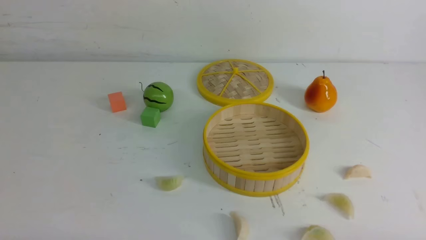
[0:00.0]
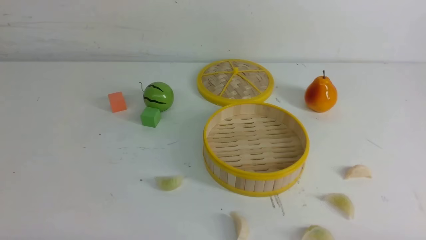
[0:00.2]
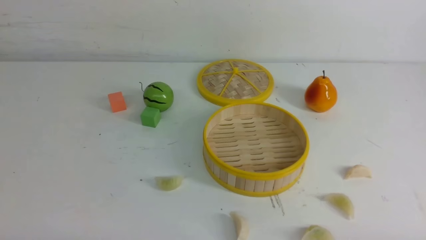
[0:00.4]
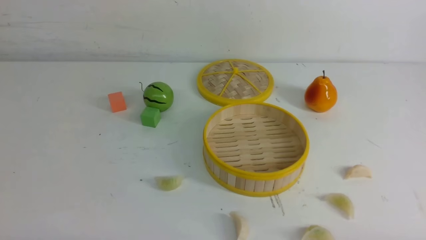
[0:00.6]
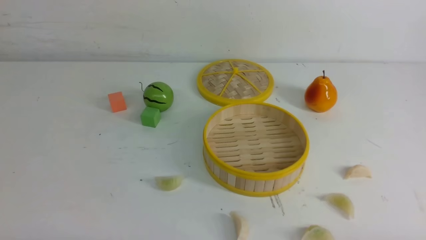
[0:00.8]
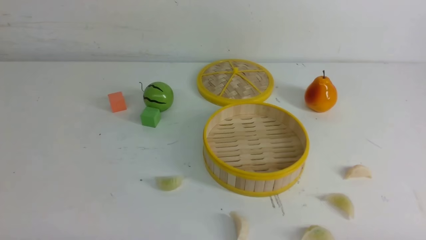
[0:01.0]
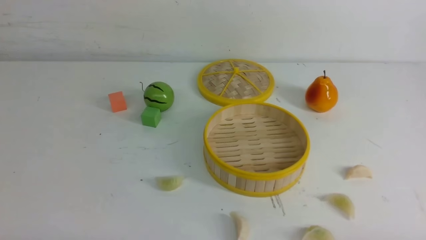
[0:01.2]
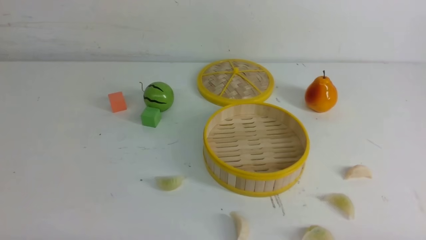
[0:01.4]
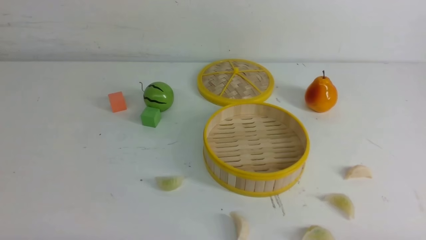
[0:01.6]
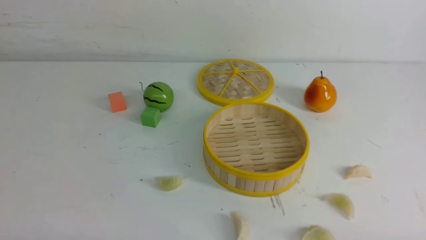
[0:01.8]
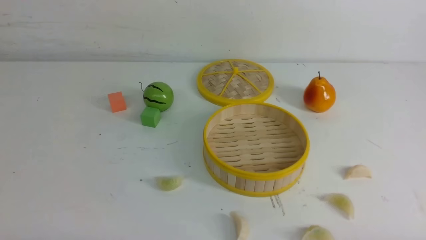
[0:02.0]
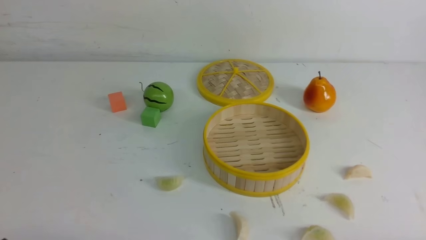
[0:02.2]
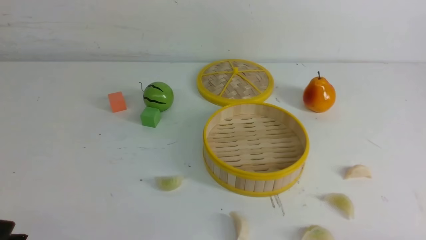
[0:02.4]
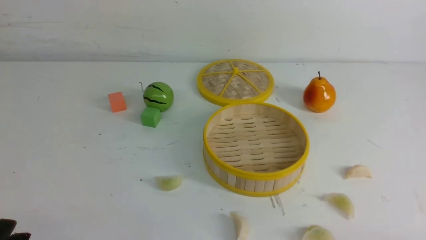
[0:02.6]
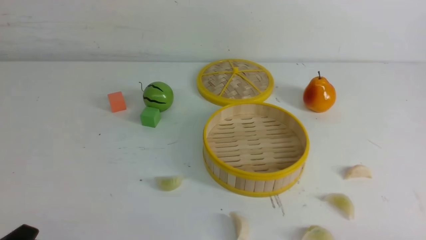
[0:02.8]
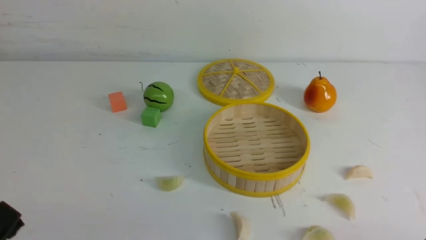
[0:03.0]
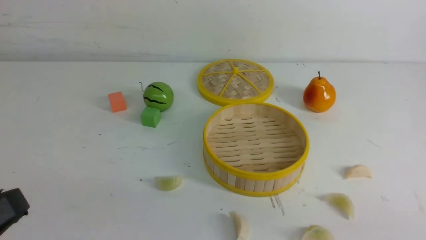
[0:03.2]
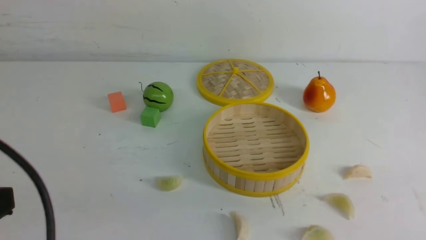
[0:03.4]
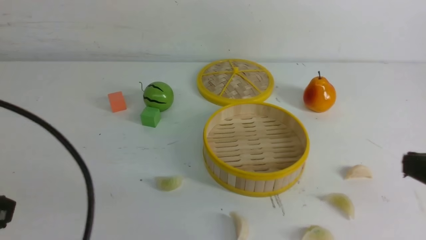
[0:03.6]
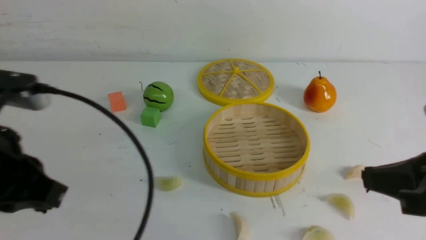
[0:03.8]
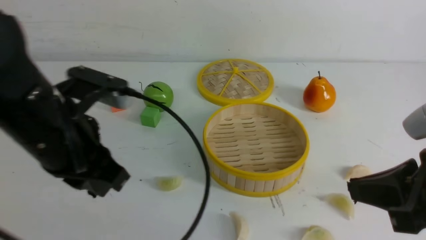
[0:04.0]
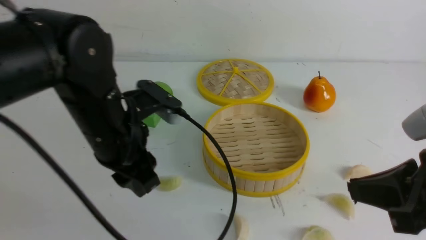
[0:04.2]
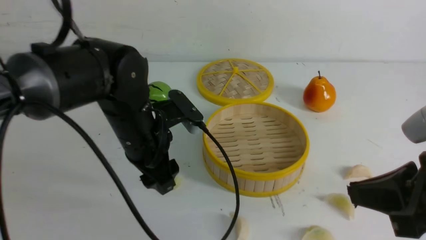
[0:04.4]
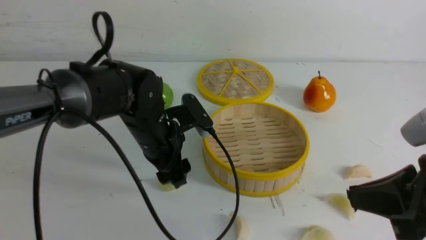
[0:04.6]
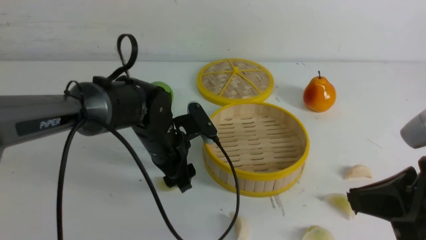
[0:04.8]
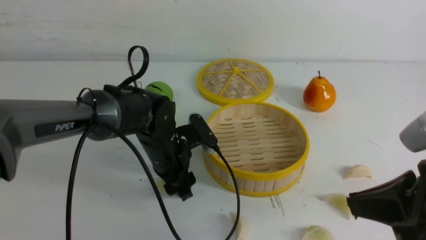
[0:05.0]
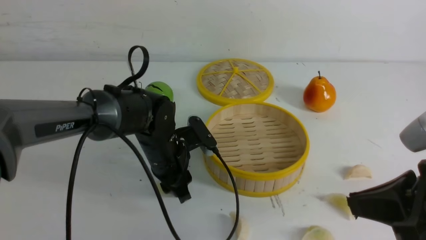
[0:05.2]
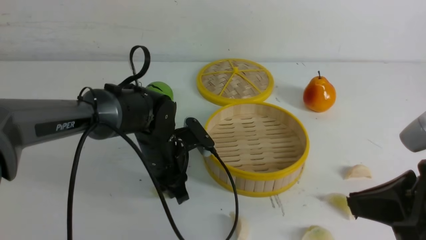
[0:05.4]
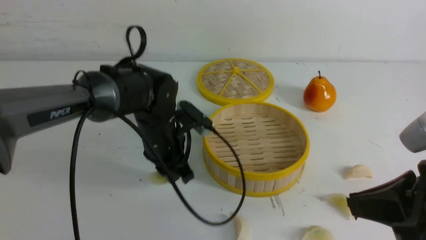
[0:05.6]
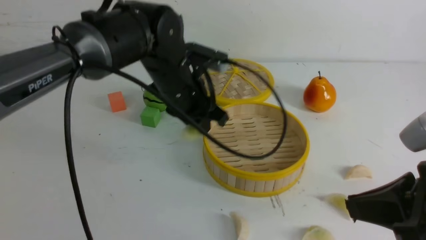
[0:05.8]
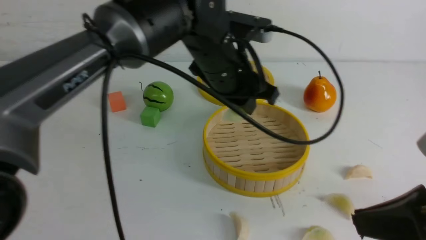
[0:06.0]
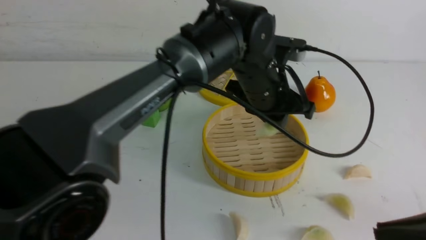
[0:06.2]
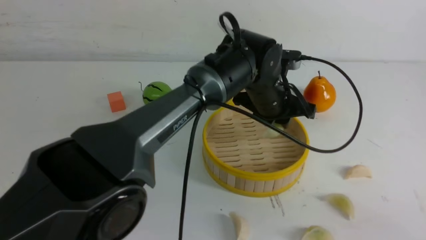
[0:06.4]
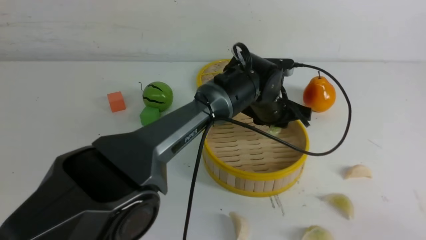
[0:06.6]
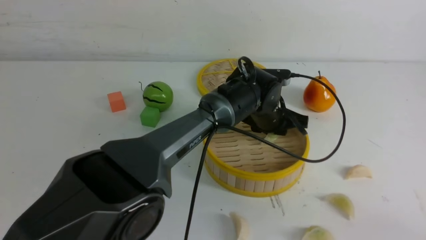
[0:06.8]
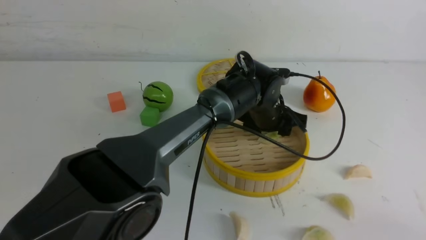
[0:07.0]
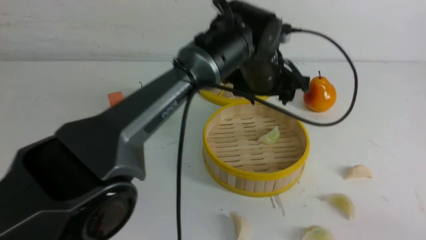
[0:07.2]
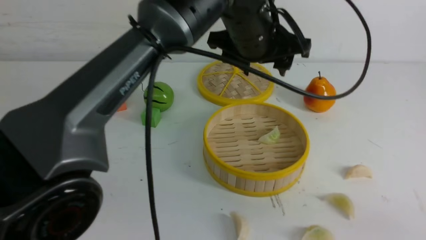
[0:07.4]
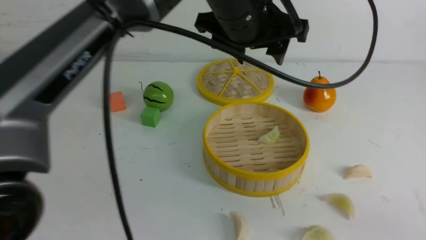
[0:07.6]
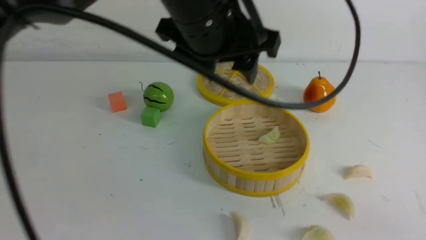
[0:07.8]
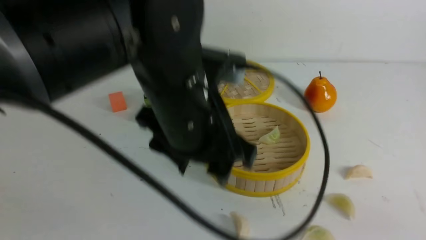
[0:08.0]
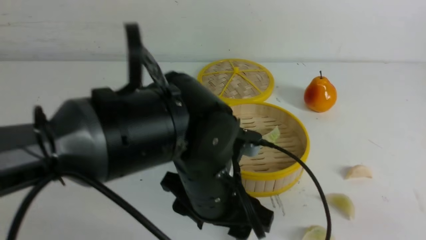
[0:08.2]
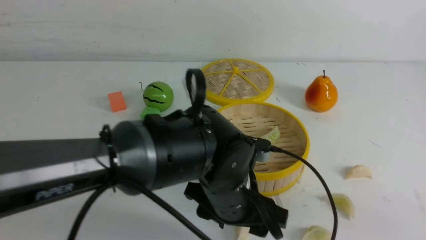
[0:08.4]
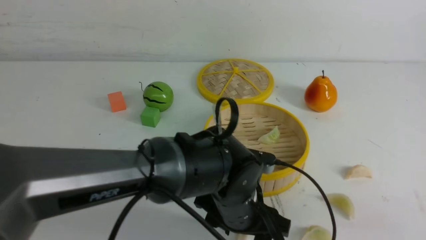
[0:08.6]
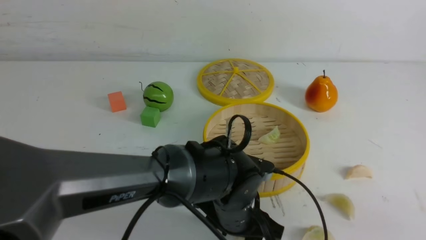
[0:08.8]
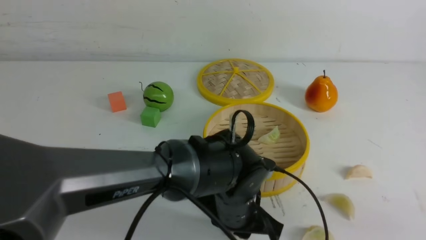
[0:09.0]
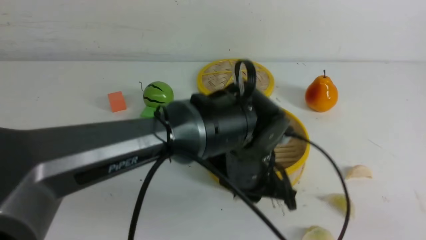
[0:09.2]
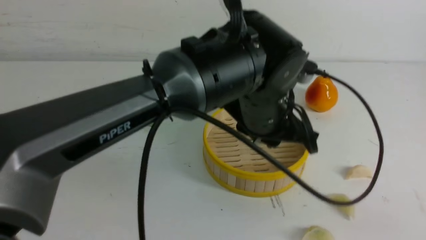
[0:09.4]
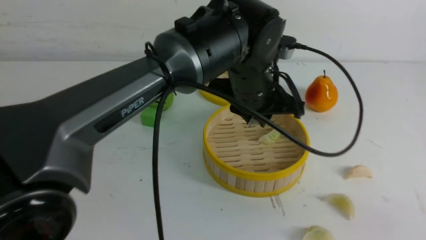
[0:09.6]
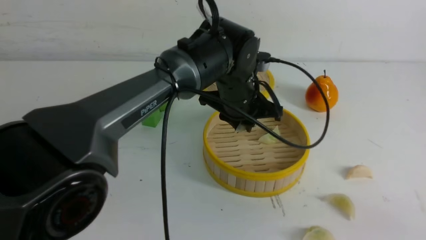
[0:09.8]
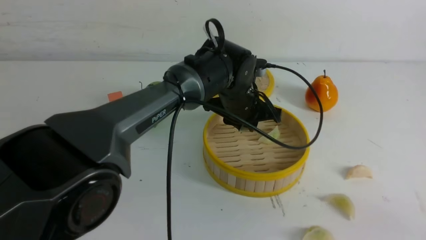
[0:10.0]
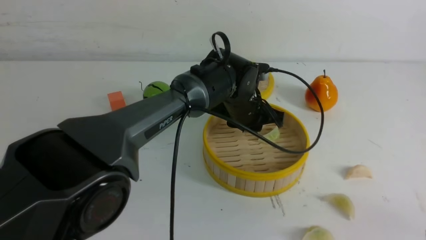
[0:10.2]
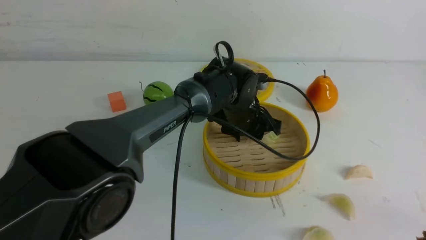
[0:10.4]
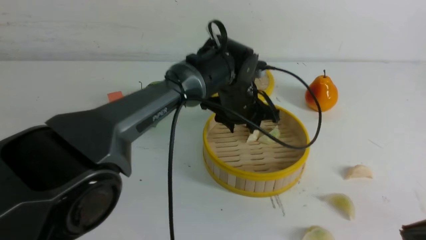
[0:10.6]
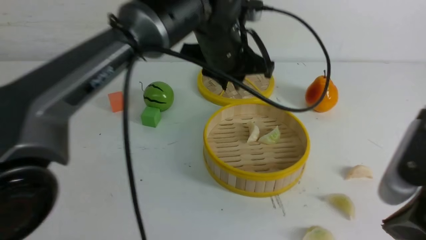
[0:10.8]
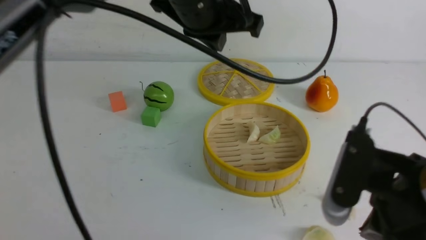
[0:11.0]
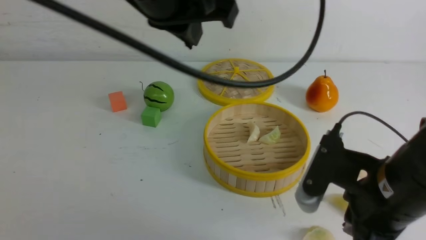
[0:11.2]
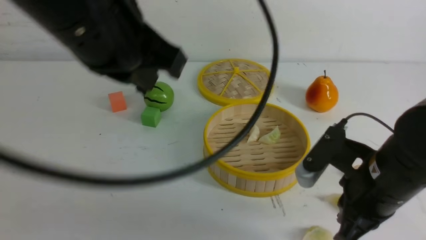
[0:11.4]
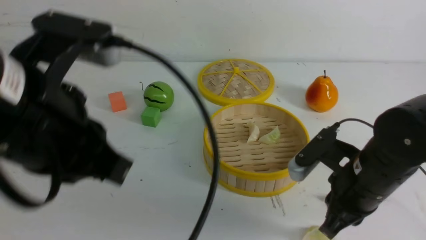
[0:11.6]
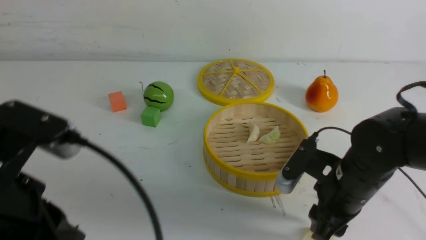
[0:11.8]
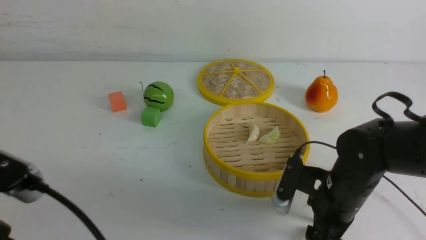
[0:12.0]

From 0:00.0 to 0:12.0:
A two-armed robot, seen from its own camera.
Task of the whole recording: put the dumplings into the steamer on the white table.
Step, from 0:00.0 to 0:05.4: use the left arm to grab a dumpling.
Step, from 0:05.6 to 0:06.2: use the left arm to put the dumpling into the steamer.
Step, from 0:06.4 to 0:09.0: use the left arm to grab a dumpling.
Step, from 0:09.2 to 0:10.4: use the left arm to put the dumpling into the steamer.
From 0:01.6 to 0:03.0: The left gripper travels upward by some 10 cm.
From 0:03.0 to 0:04.4: The left gripper moves forward and to the right, approximately 30 cm, and closes, then reopens. Meanwhile the right gripper is displaced upward, forward and to the left by about 15 cm, and closes.
From 0:04.4 to 0:06.0: The left gripper shifts approximately 10 cm to the right and forward, goes downward and returns, about 10 cm each way, and closes its fingers.
From 0:06.0 to 0:07.6: The right gripper shifts about 10 cm backward. Meanwhile the left gripper is displaced upward by roughly 10 cm, and opens its fingers.
From 0:07.6 to 0:09.0: The left gripper is displaced downward and backward by some 25 cm, and closes up.
From 0:09.0 to 0:10.4: The left gripper is displaced forward by roughly 15 cm.
From 0:10.4 to 0:12.0: The right gripper goes some 25 cm forward, downward and to the left, and opens up, while the left gripper moves backward and to the left, approximately 40 cm, and closes up.

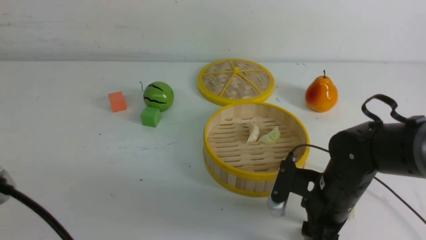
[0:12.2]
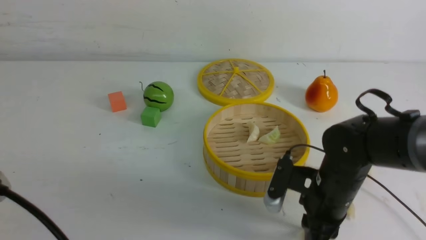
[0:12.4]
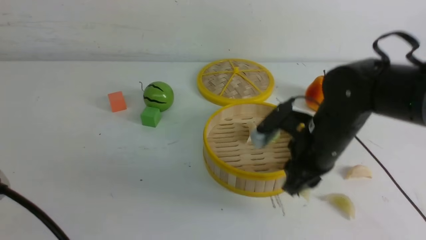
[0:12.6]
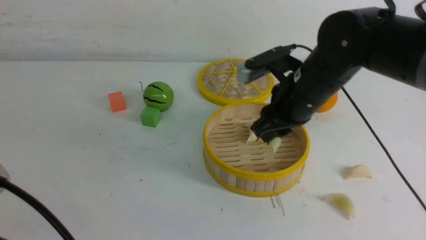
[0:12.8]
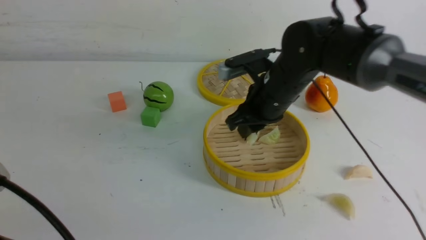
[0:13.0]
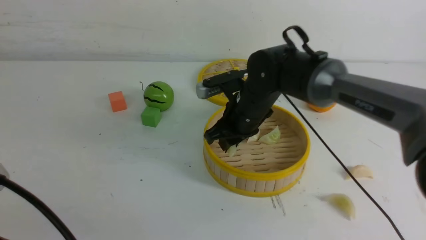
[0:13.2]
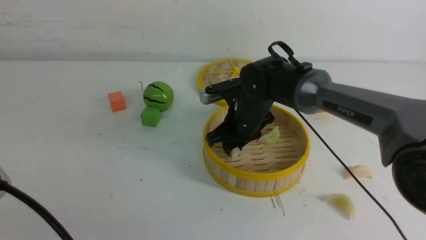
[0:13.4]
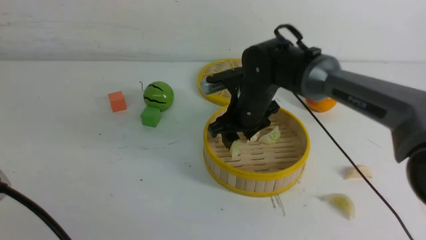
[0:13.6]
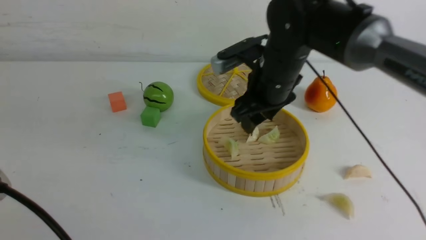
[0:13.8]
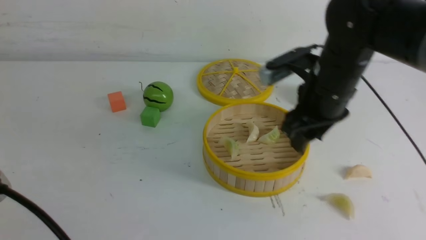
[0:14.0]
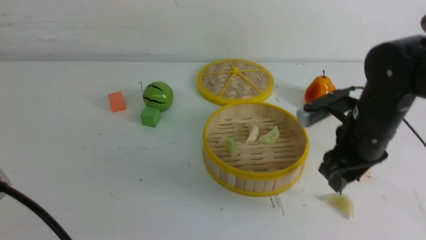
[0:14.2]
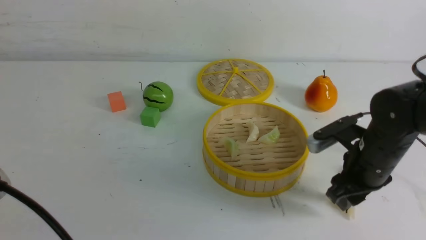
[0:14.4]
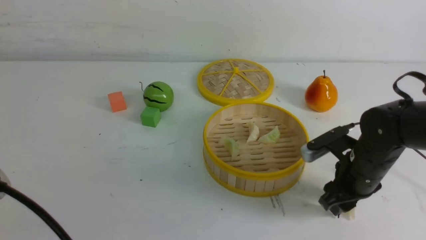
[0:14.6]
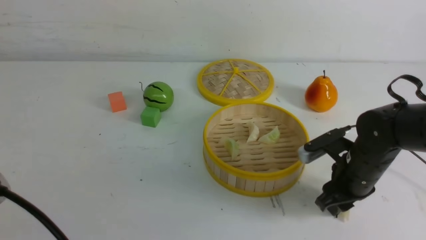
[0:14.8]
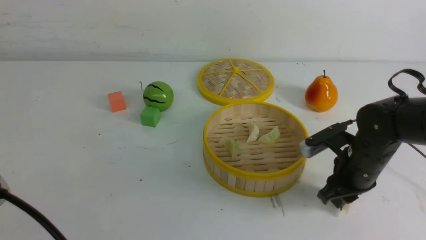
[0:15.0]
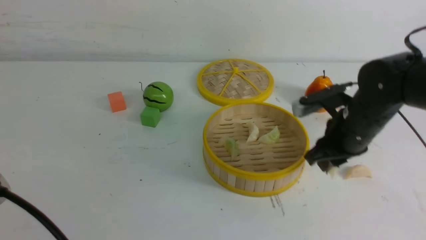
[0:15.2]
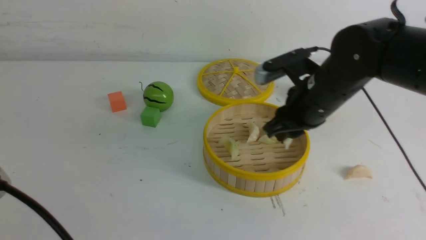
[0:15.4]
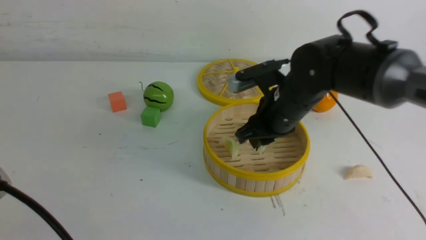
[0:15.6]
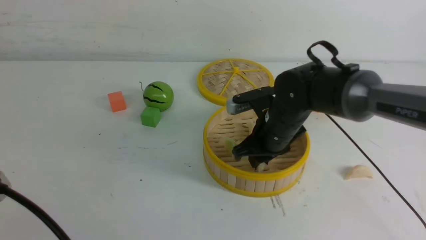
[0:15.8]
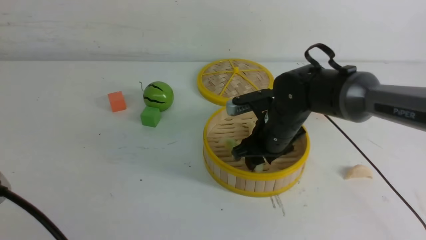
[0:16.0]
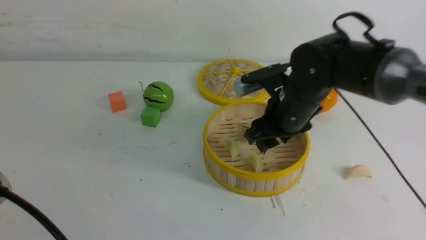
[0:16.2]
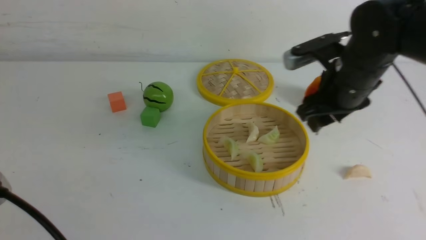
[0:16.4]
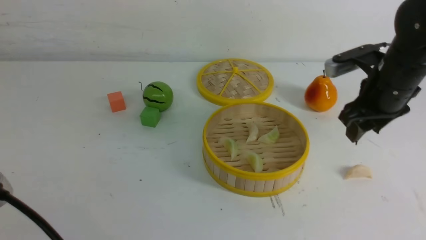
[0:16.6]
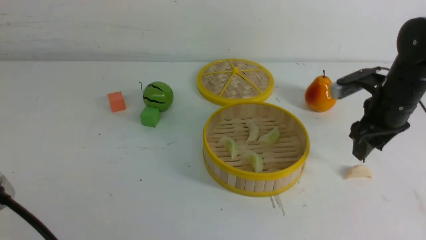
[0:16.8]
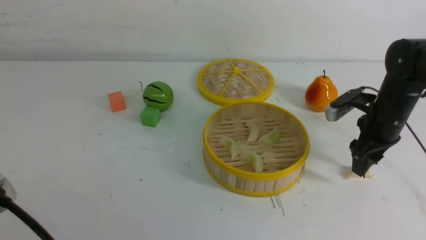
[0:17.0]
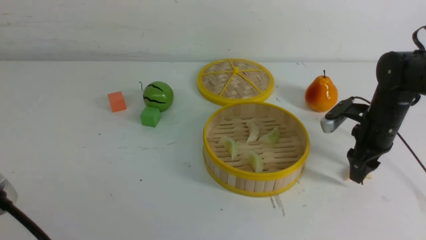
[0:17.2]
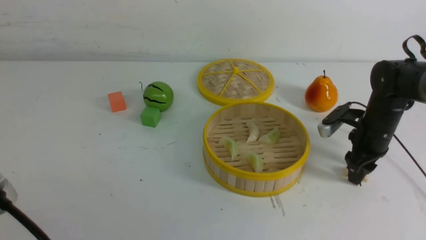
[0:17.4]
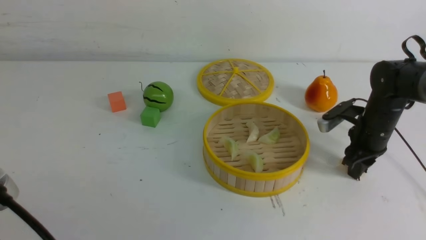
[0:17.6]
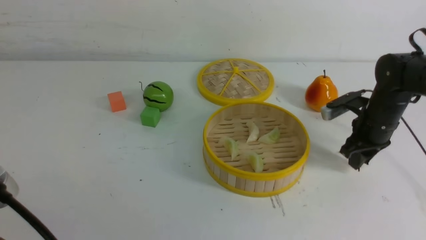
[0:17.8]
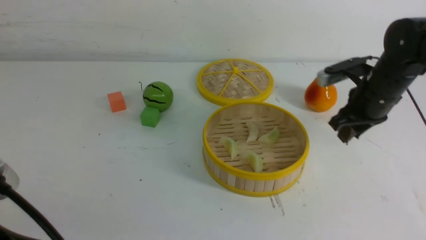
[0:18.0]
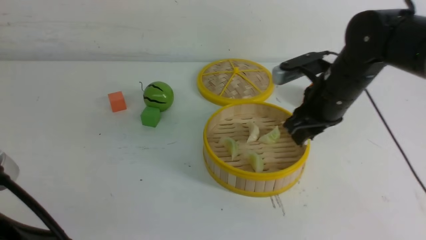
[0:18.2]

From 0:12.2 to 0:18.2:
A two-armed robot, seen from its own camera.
Task of the whole recording: put the dumplings into the steamer on the white table.
Step, from 0:12.6 to 0:13.4: use the right arm to put the dumpling into the steamer.
Step, from 0:13.6 to 0:14.8: use the right arm to grab a dumpling.
Step, from 0:15.0 to 0:16.0: use the right arm to put the dumpling into the steamer.
Step, from 0:16.2 to 0:17.6: use the right arm to grab a dumpling.
From 0:12.2 to 0:13.8: The right gripper goes approximately 20 cm forward, upward and to the left, and closes, then opens again.
From 0:13.8 to 0:15.2: The right gripper is displaced to the right, downward and backward by about 15 cm, and closes.
From 0:15.2 to 0:16.6: The right gripper shifts some 10 cm upward, goes to the left and returns, roughly 10 cm each way, and opens its fingers.
From 0:16.6 to 0:18.2: The right gripper reaches some 10 cm downward, then returns, and closes.
